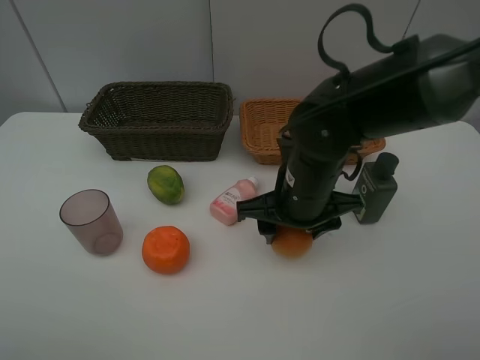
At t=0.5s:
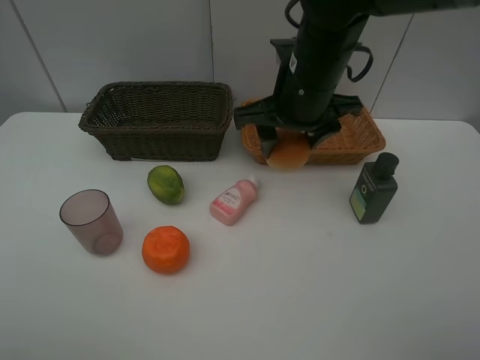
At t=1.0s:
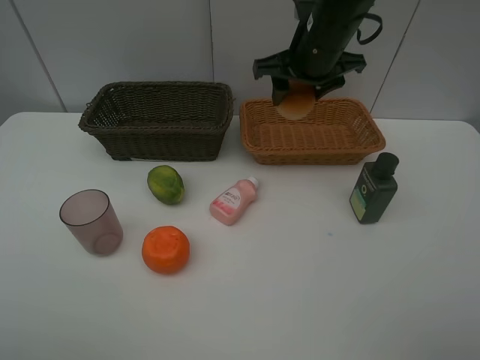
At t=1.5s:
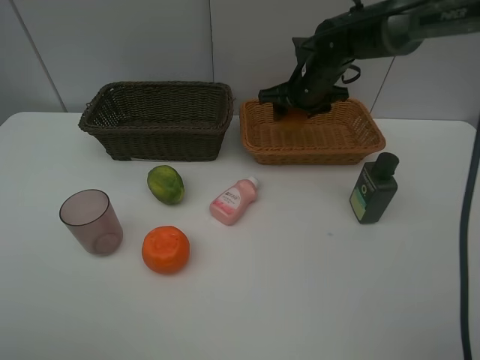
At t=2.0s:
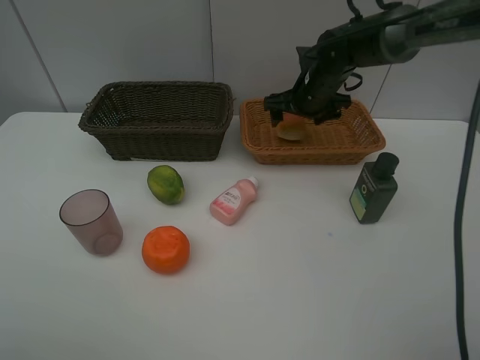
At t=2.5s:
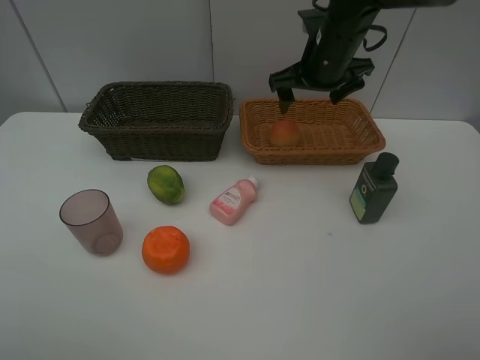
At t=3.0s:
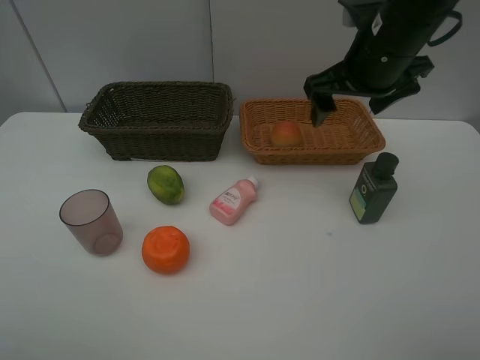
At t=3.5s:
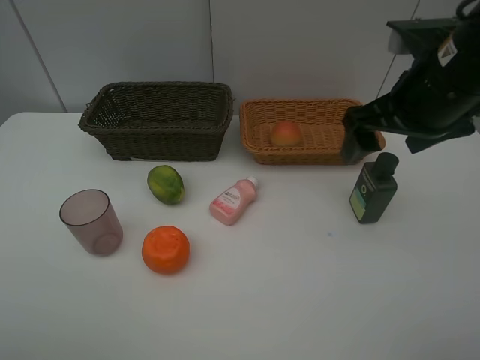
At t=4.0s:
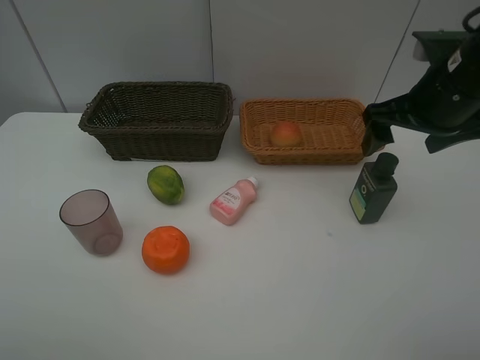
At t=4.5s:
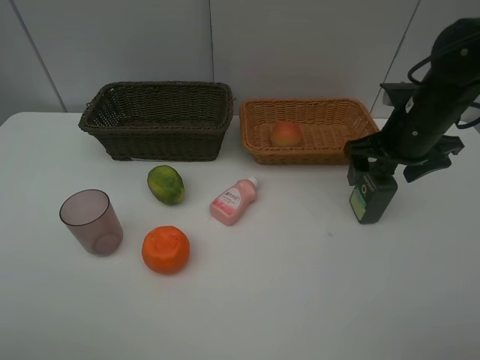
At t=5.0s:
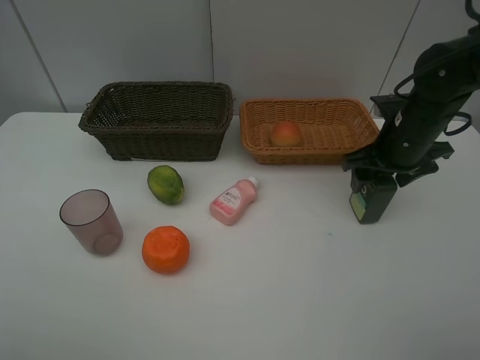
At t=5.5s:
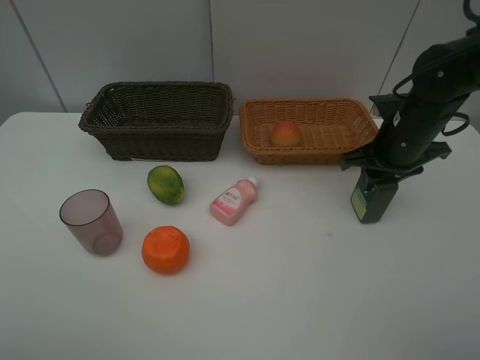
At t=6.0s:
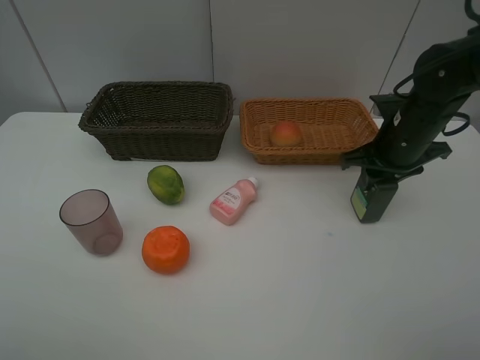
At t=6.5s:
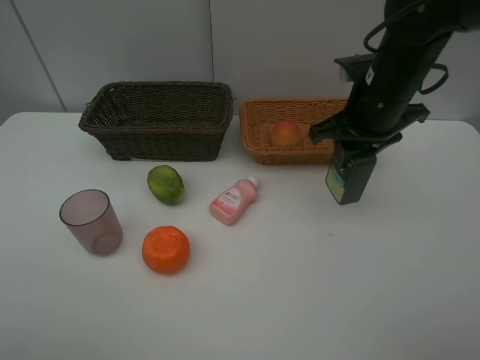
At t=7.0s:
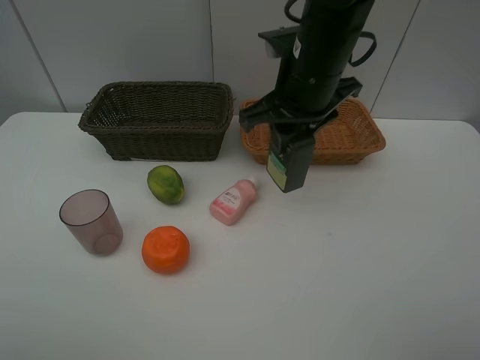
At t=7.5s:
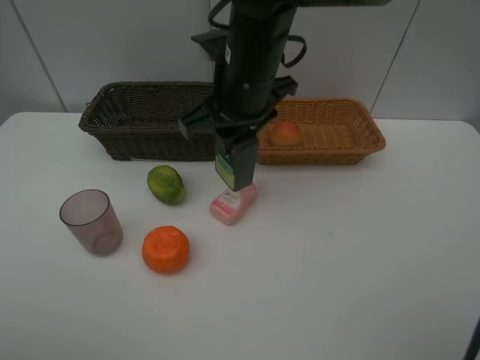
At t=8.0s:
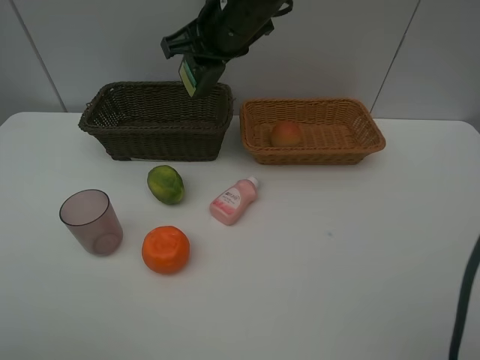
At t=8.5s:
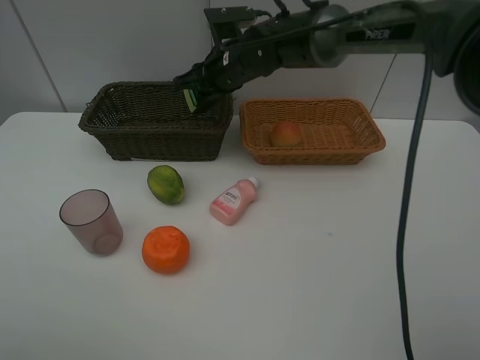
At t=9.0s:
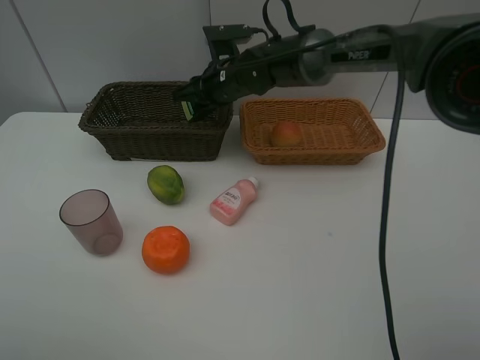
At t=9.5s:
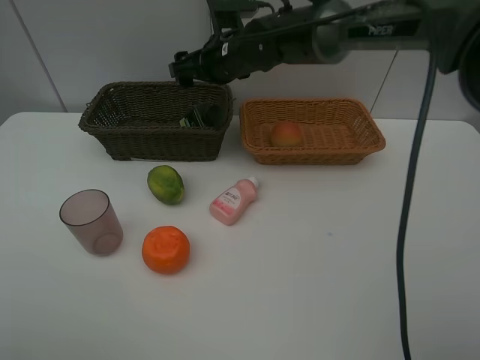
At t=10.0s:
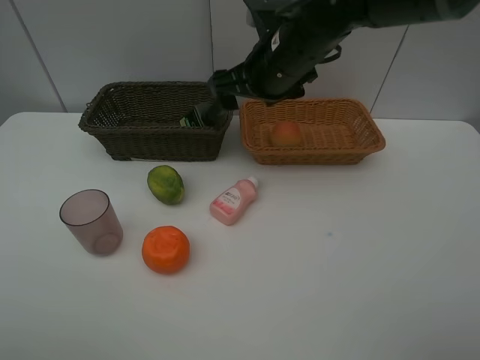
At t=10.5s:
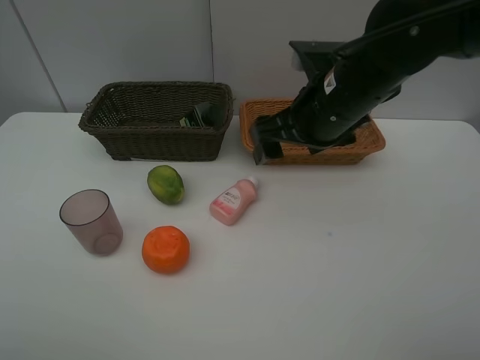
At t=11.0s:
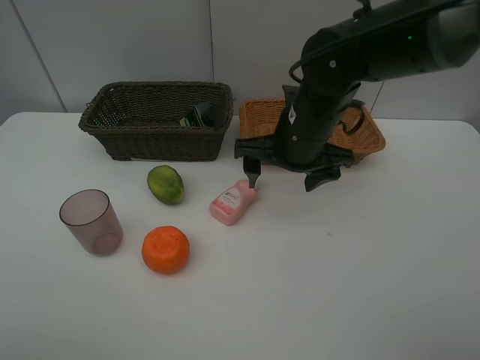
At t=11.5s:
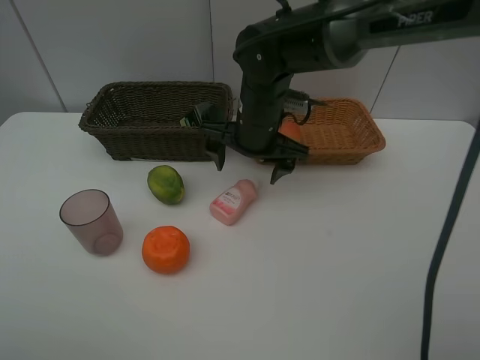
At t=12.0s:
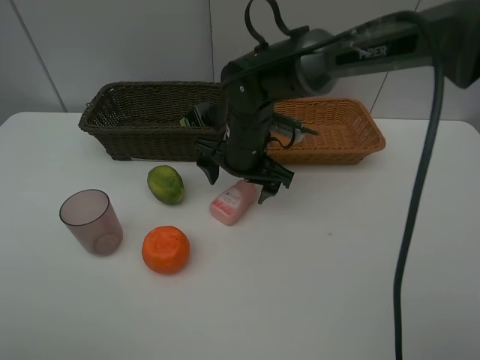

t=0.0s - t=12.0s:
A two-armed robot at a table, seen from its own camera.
Task of the whole recording: place multiple objects separately in different baskets.
t=0.0s - t=2.0s: The right gripper goes approximately 20 cm forward, and opens up.
t=2.0s - t=4.0s: The right gripper heads backward, to the right and upward, covering some 20 cm.
t=4.0s - t=6.0s: The right gripper travels downward by some 10 cm, and closes.
t=6.0s - t=8.0s: The right gripper is displaced to the left and upward by approximately 25 cm.
t=8.0s - t=10.0s: The right gripper moves to the right, roughly 5 cm, travels downward and back again, some 10 cm each way, and opens its fingers.
t=10.0s - t=12.0s: The right gripper is displaced downward and to the left by about 10 cm.

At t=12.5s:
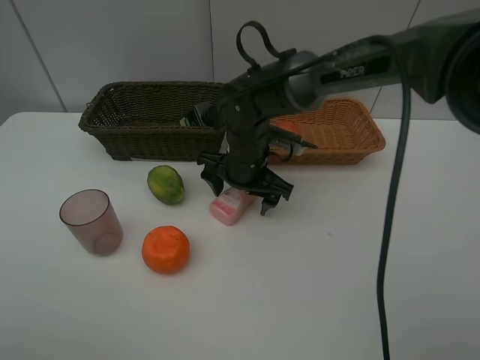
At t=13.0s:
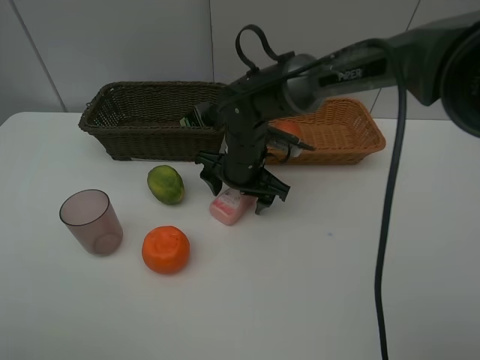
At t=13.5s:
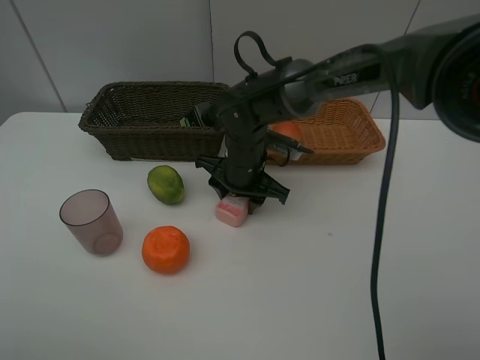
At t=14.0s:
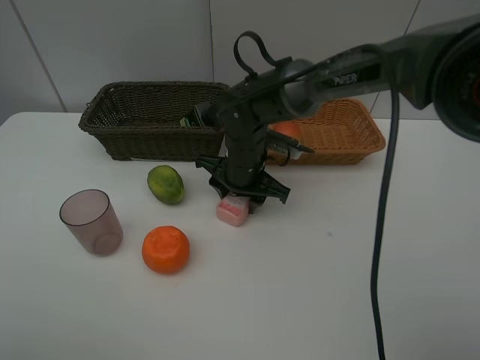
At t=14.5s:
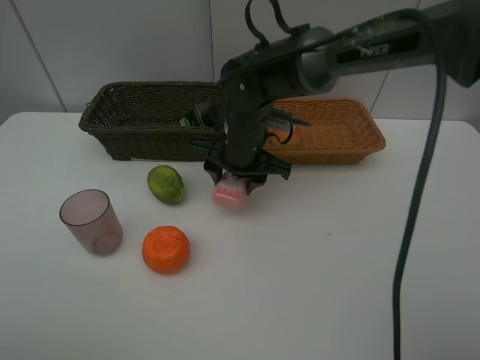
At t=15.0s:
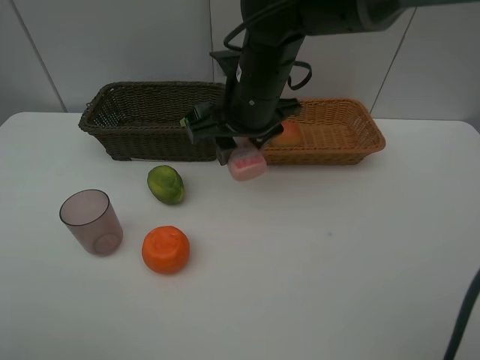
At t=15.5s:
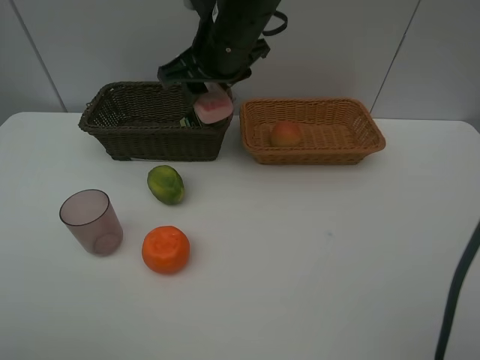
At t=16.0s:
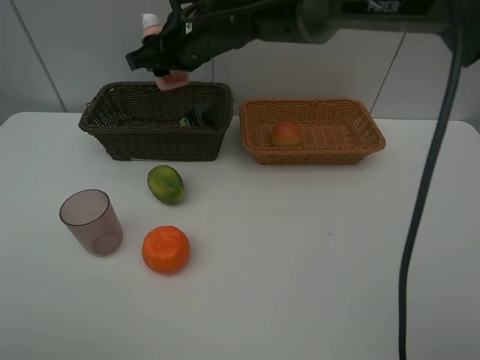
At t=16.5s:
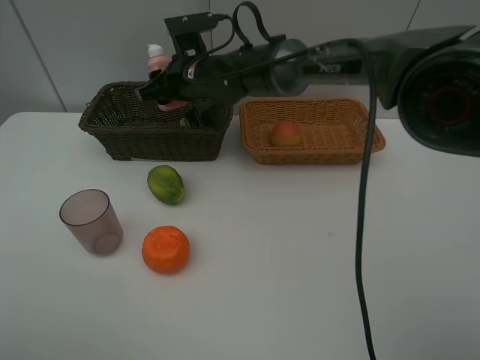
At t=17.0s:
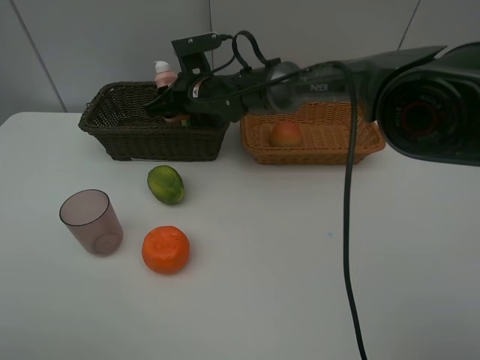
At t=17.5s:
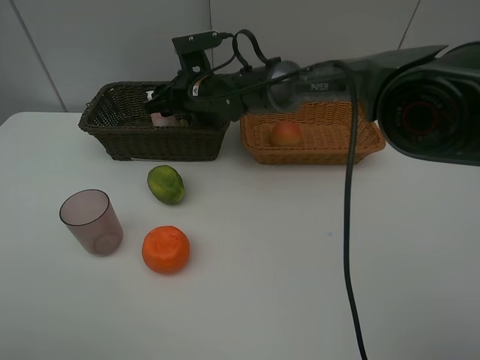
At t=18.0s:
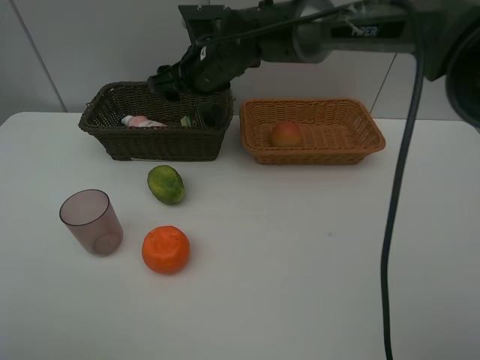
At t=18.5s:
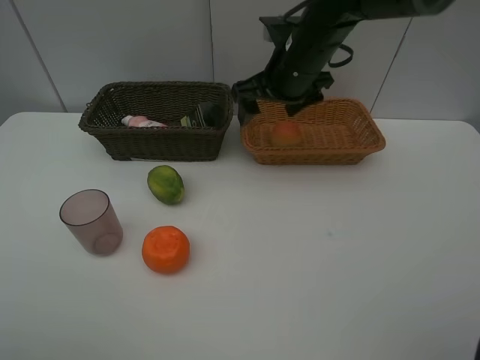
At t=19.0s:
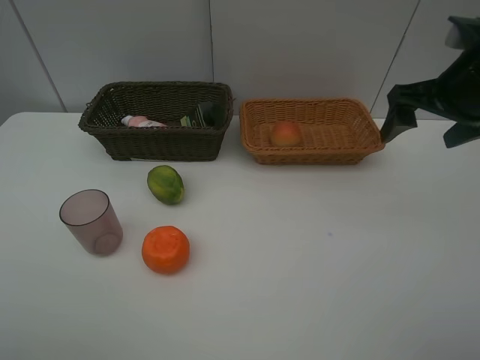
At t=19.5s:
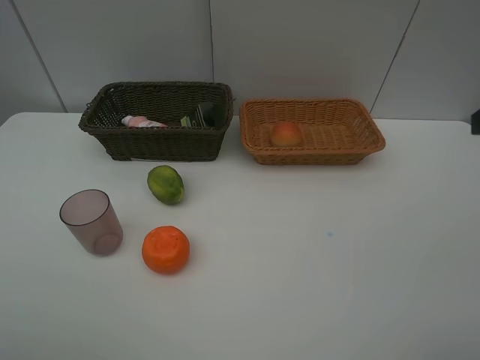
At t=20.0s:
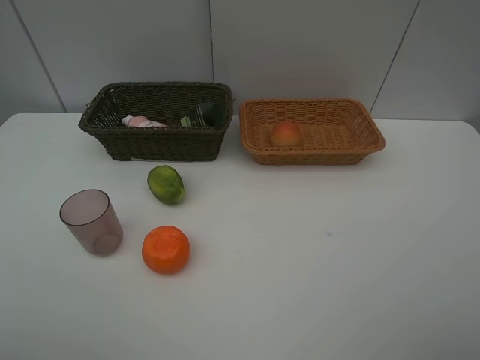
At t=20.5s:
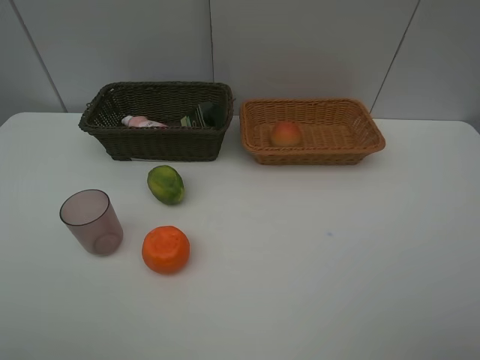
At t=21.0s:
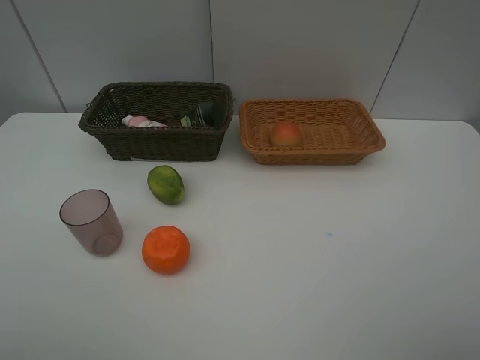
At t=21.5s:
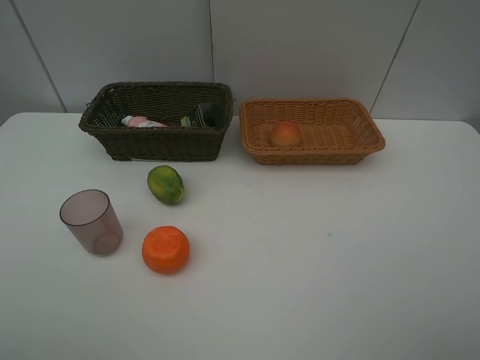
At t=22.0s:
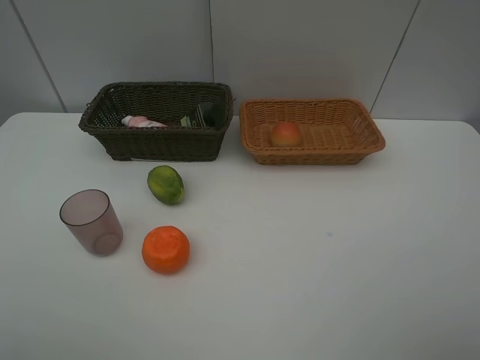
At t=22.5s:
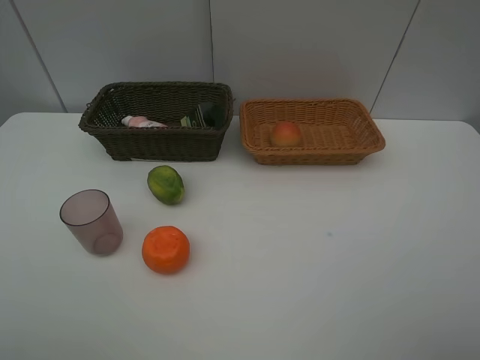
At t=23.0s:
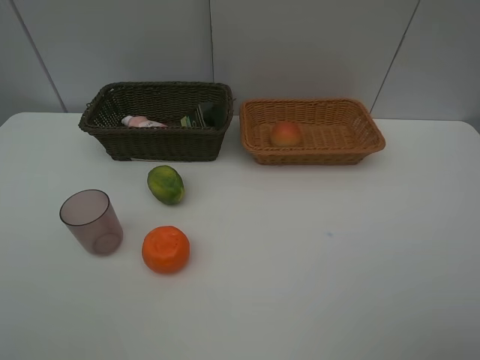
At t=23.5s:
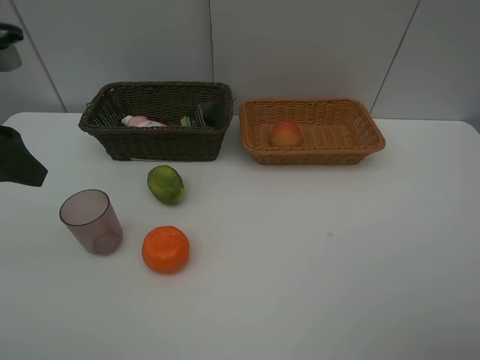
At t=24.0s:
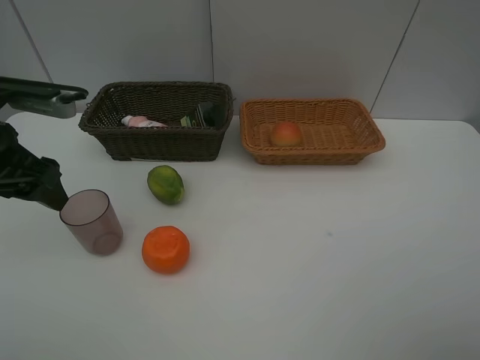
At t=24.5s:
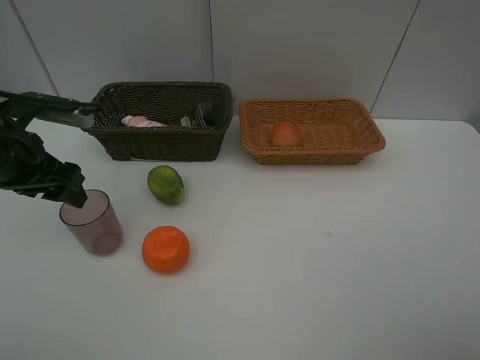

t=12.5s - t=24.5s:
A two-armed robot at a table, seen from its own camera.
Task of the whole recording: place multiple objects separately in different baskets.
t=12.5s - t=14.5s: The right gripper closes up.
t=14.5s - t=16.5s: The right gripper is displaced forward and to the left by some 10 cm, and reaches some 15 cm upward, then returns.
t=16.5s - t=18.5s: The right gripper heads to the right, covering approximately 15 cm, and opens.
t=18.5s - t=20.5s: The right gripper goes roughly 40 cm backward and to the right.
t=20.5s - t=22.5s: Both grippers stay about where they are.
t=22.5s - t=24.5s: The left gripper moves forward and downward, some 25 cm.

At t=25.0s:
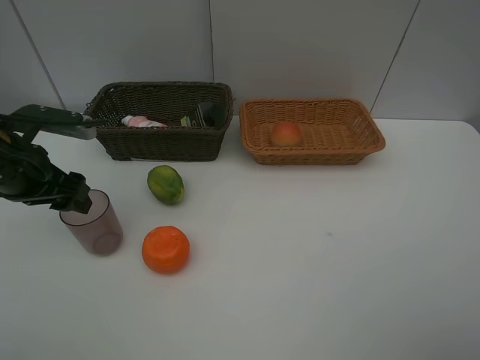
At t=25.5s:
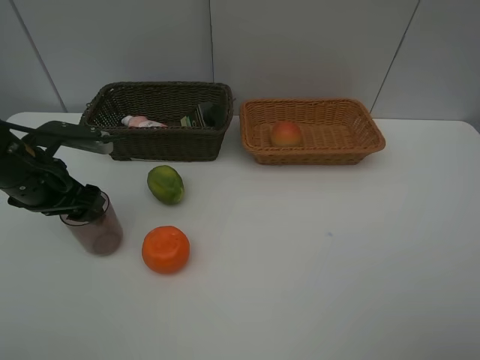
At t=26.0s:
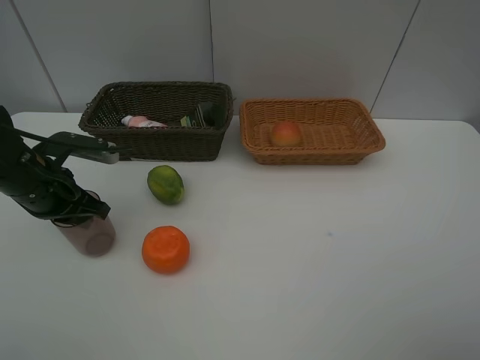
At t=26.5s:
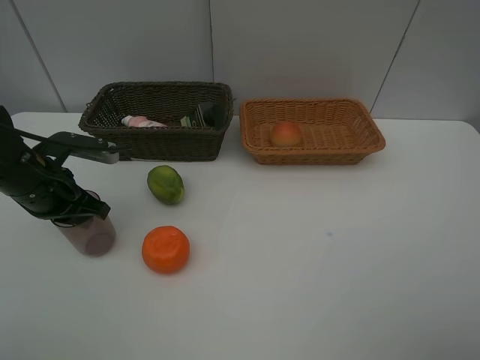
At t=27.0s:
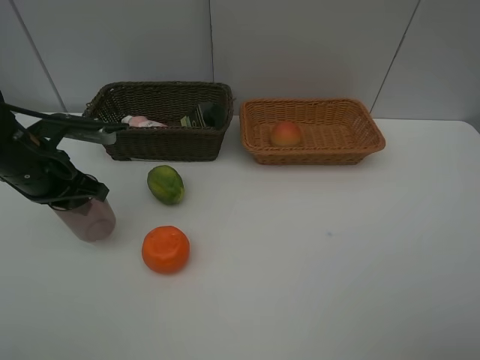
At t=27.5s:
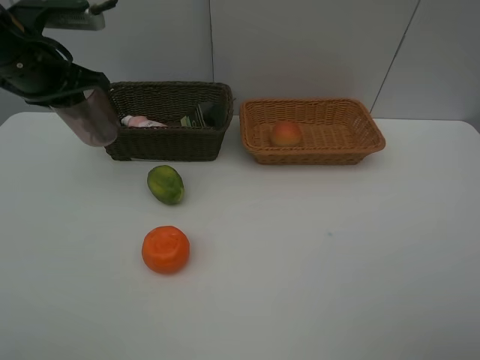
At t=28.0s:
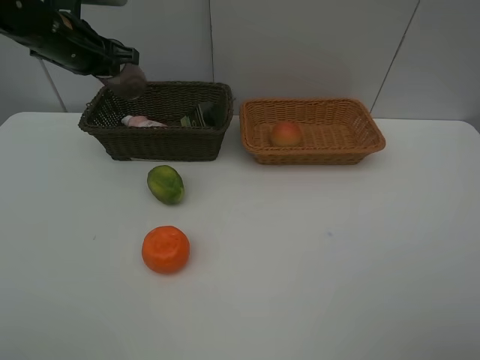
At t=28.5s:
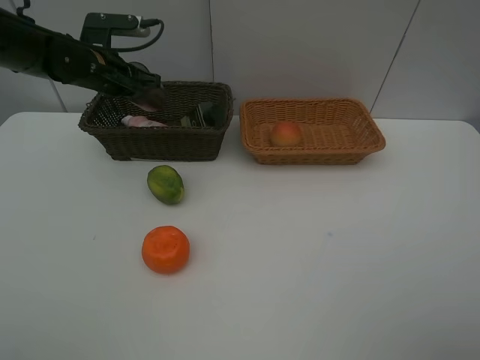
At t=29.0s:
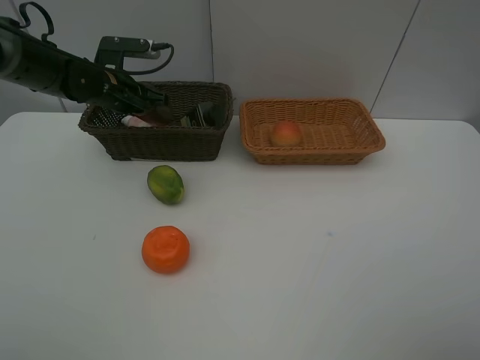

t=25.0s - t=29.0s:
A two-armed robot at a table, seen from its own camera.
Task of the whole recording: place multiple objects separately in different baskets.
t=25.0s - t=27.0s: The left gripper closes its fingers.
t=27.0s - t=29.0s: The left gripper is displaced forward by roughly 15 cm.
